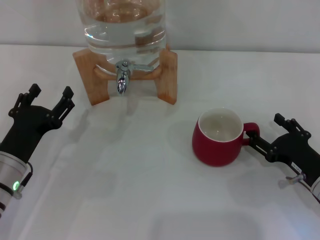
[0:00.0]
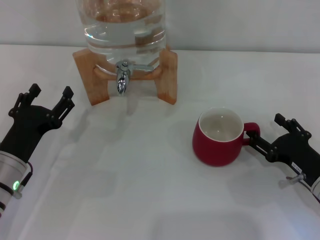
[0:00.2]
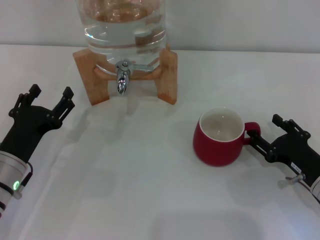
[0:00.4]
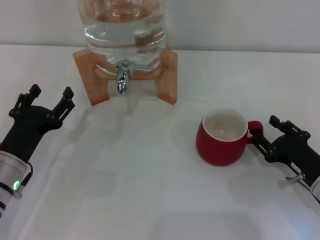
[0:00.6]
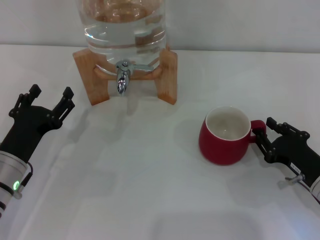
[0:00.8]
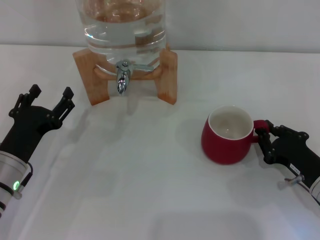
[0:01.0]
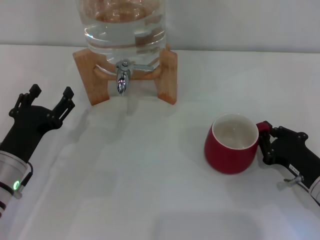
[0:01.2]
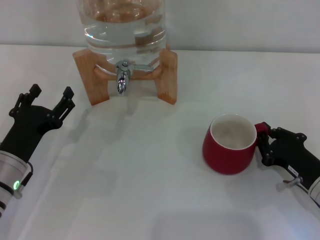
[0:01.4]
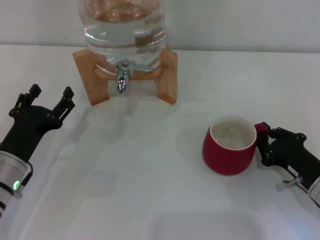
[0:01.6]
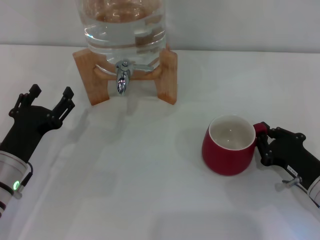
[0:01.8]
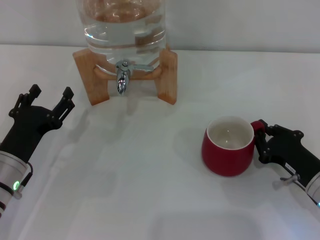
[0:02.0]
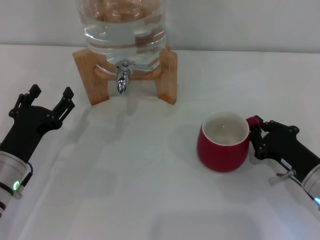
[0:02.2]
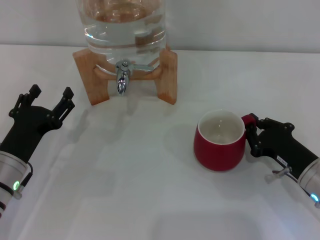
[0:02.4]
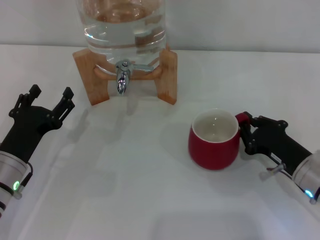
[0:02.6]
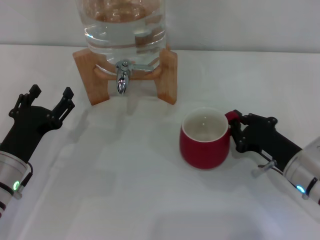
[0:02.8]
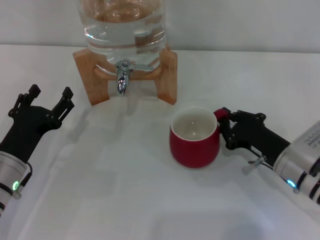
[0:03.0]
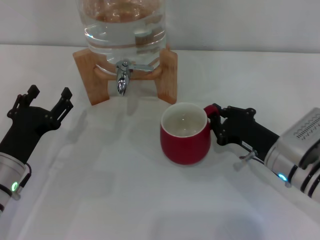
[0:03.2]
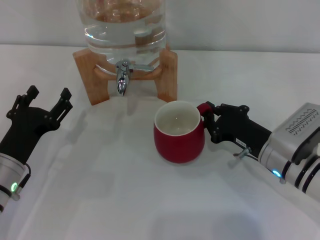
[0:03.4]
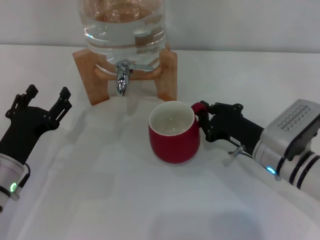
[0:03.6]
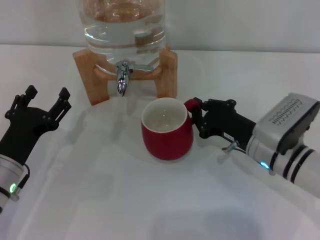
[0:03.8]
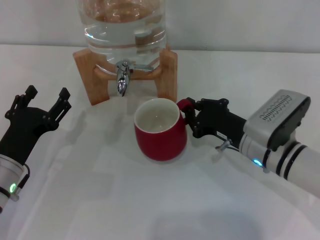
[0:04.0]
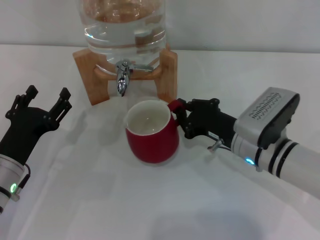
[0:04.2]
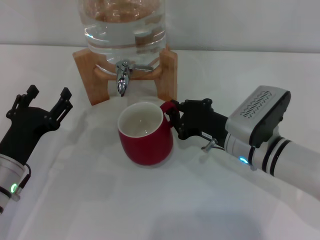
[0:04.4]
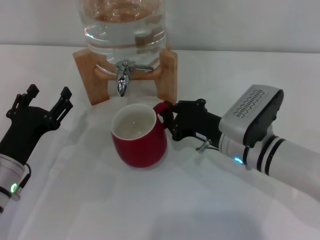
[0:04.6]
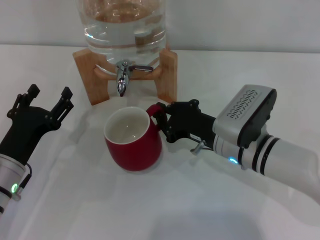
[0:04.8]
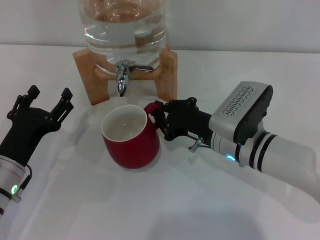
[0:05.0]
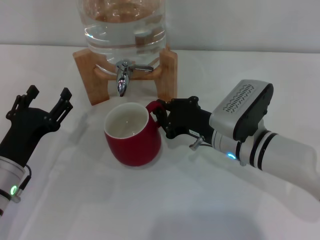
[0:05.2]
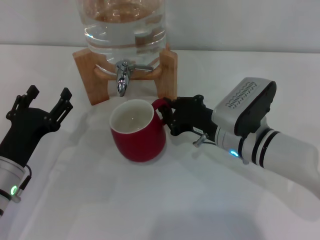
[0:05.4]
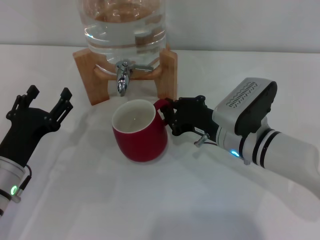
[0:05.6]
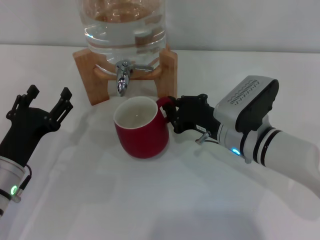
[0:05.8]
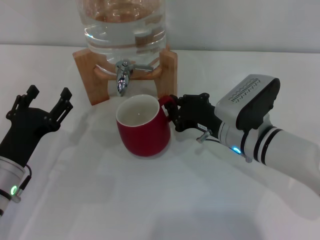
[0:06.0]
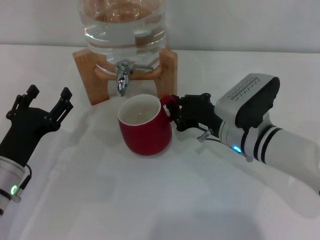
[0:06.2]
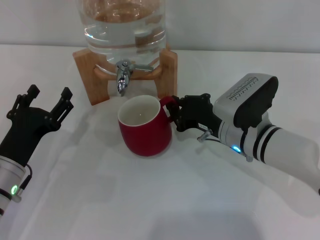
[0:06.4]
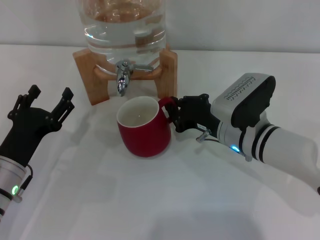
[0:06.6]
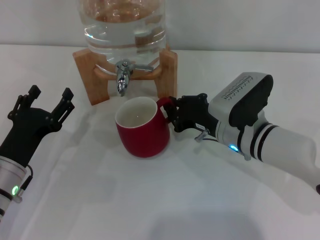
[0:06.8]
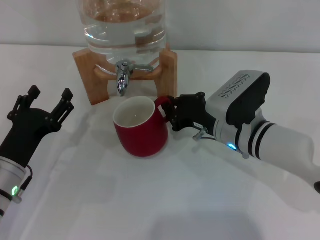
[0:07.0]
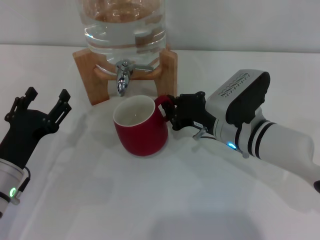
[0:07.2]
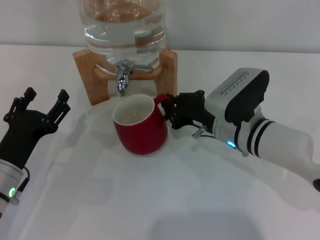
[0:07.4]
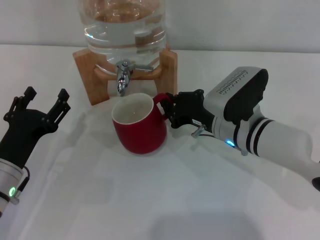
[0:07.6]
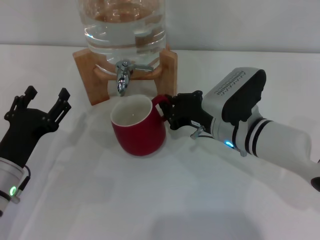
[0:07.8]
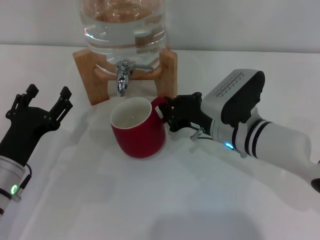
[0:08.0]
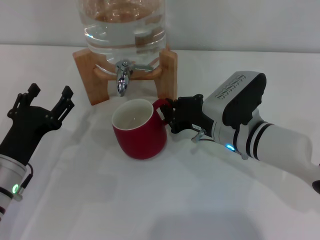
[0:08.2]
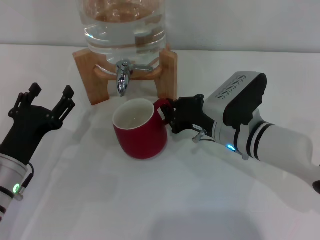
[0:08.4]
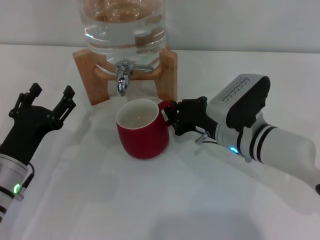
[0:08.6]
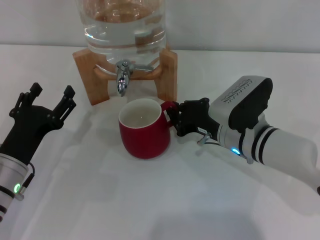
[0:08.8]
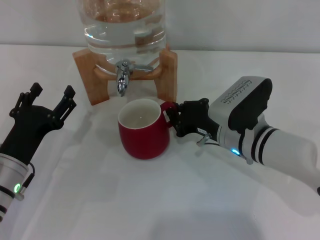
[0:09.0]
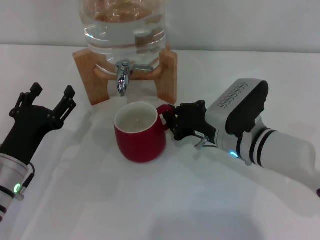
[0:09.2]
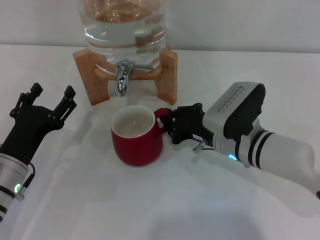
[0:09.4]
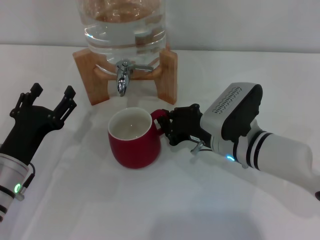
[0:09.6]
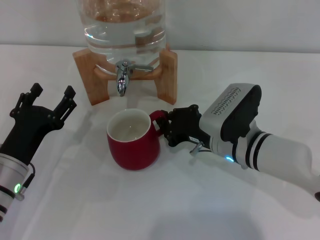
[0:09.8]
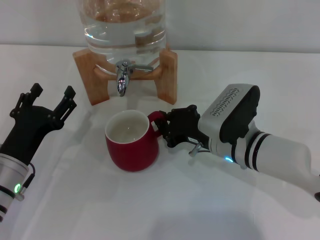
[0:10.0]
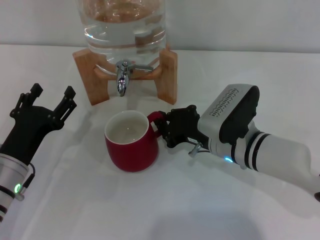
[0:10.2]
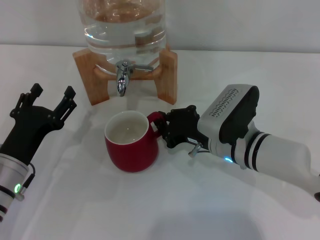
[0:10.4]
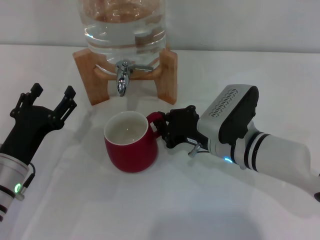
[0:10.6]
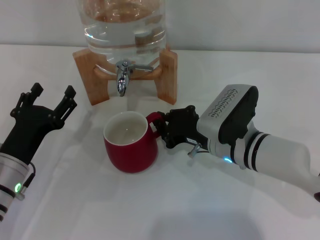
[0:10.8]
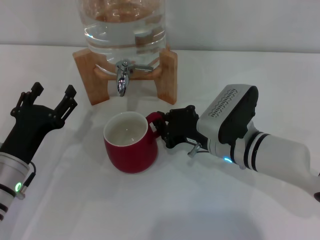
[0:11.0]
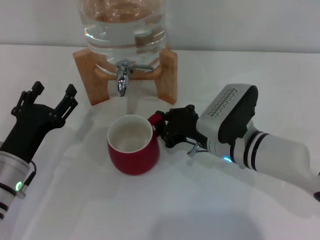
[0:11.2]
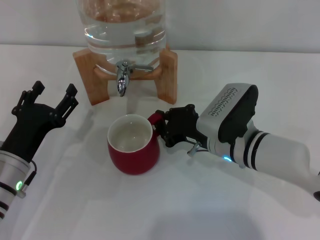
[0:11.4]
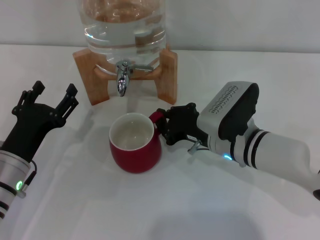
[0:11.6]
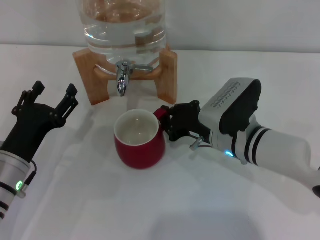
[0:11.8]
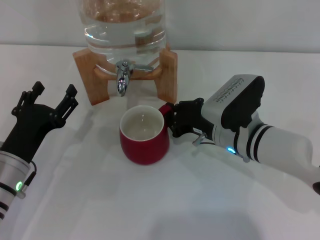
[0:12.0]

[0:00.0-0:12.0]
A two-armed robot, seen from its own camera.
Task of the whole recording: the right gripper pick up the red cup and place it horizontally under the faucet, the left gripper turn on the faucet to fill the cup, and then turn off the faucet.
0:00.0 to 0:01.6: The right gripper closes its fingers.
0:01.6 to 0:03.0: The right gripper shifts by some 5 cm.
0:03.0 to 0:04.4: The right gripper travels to the left by about 10 cm.
0:04.4 to 0:12.0: There are only small adjustments of the grippers.

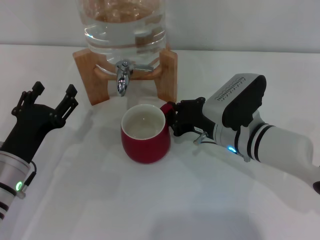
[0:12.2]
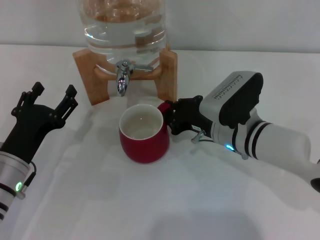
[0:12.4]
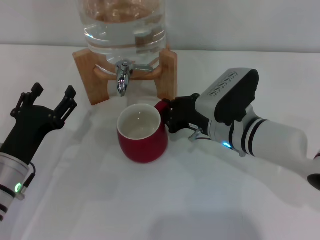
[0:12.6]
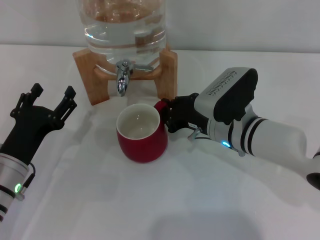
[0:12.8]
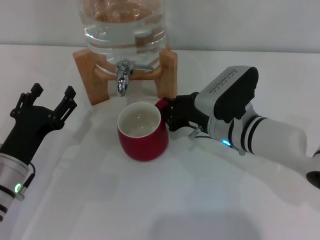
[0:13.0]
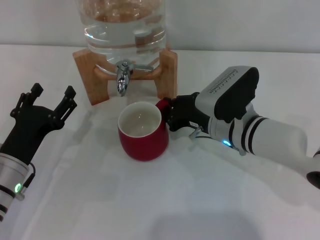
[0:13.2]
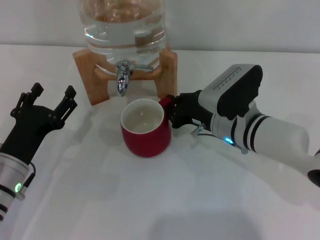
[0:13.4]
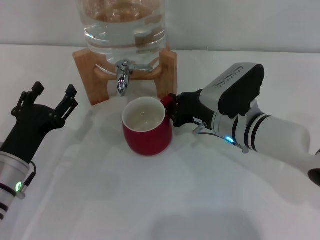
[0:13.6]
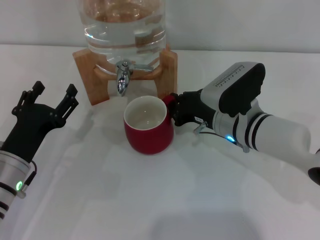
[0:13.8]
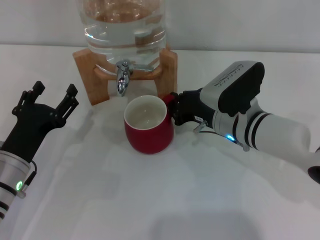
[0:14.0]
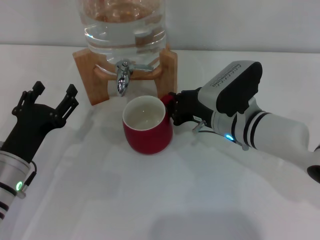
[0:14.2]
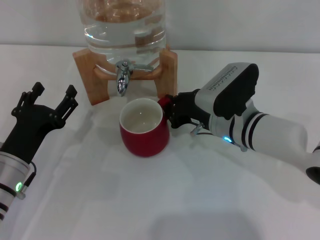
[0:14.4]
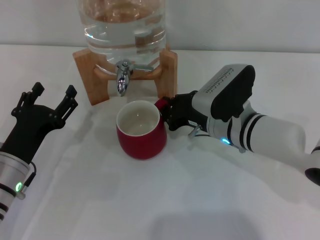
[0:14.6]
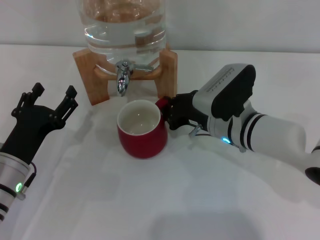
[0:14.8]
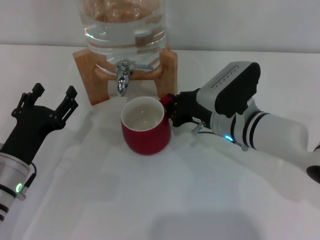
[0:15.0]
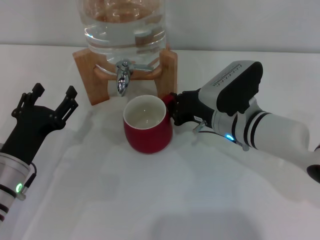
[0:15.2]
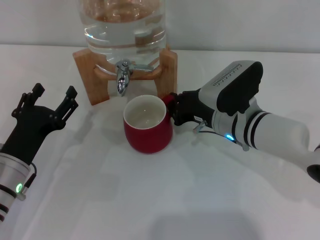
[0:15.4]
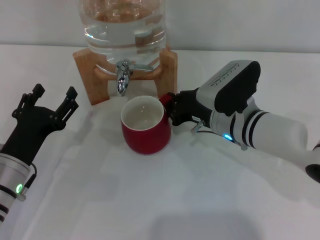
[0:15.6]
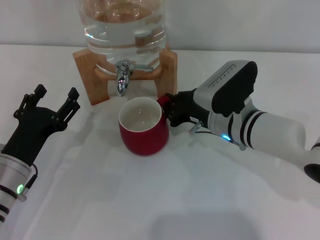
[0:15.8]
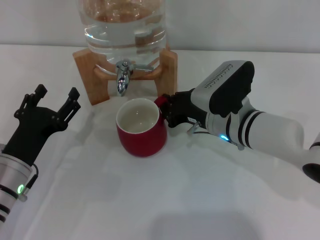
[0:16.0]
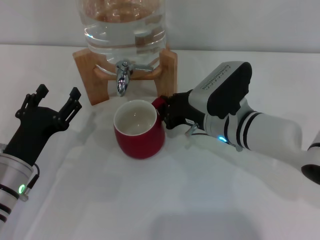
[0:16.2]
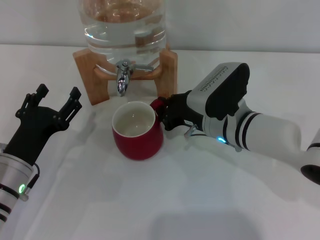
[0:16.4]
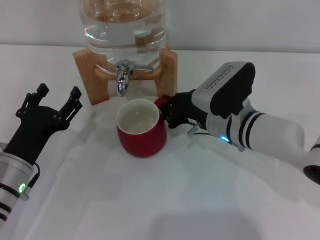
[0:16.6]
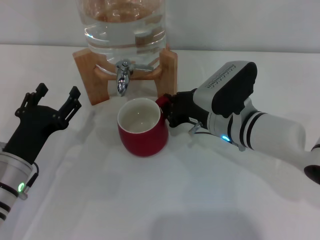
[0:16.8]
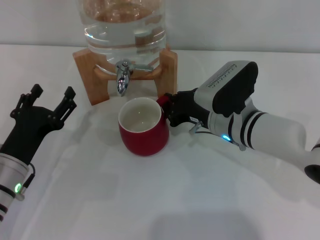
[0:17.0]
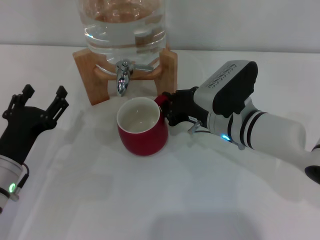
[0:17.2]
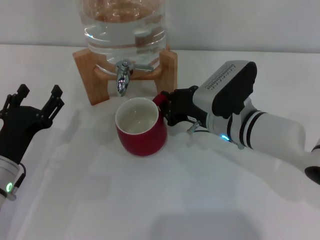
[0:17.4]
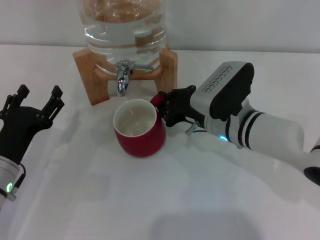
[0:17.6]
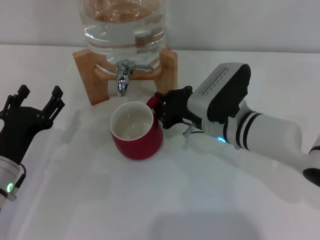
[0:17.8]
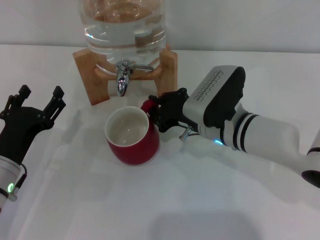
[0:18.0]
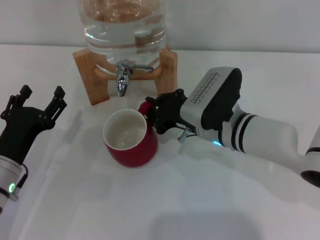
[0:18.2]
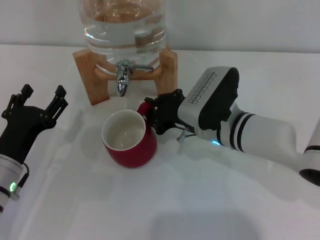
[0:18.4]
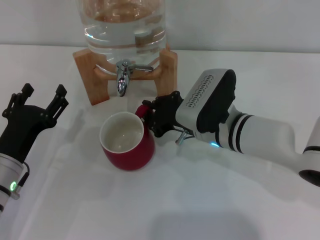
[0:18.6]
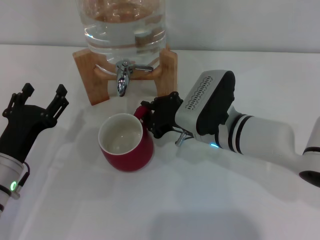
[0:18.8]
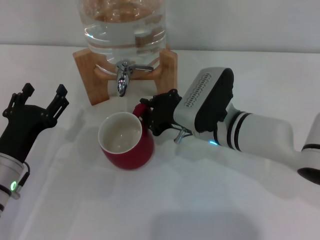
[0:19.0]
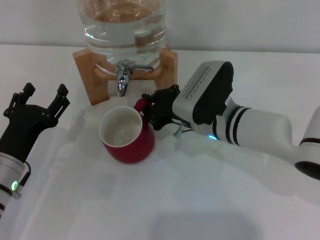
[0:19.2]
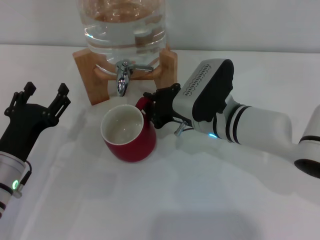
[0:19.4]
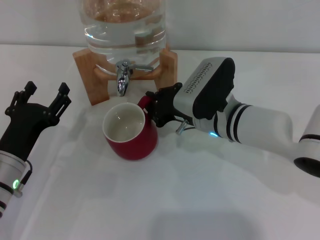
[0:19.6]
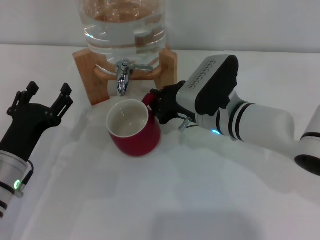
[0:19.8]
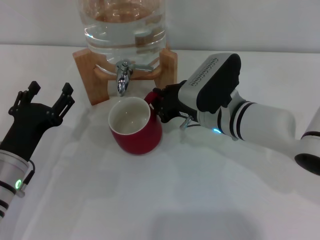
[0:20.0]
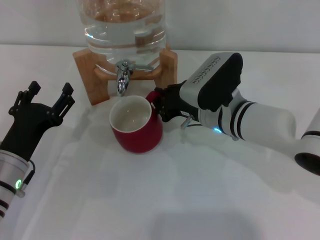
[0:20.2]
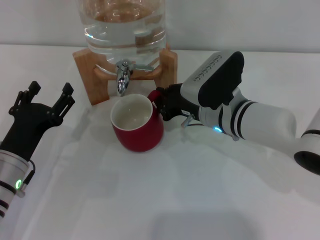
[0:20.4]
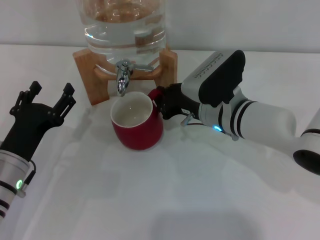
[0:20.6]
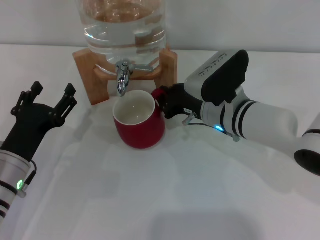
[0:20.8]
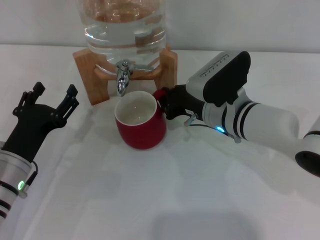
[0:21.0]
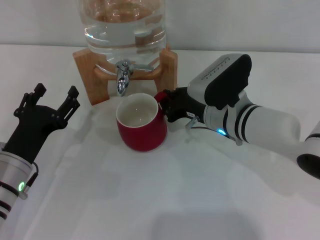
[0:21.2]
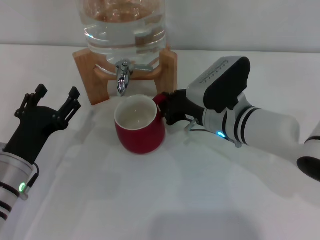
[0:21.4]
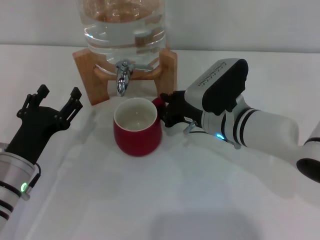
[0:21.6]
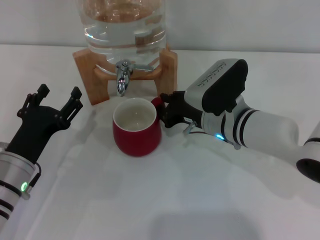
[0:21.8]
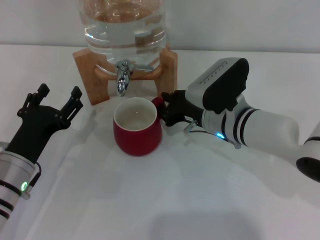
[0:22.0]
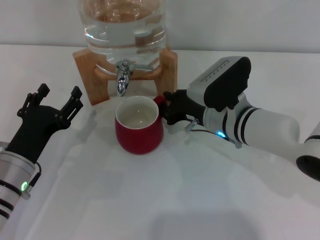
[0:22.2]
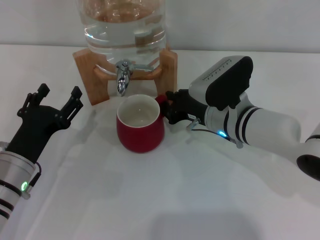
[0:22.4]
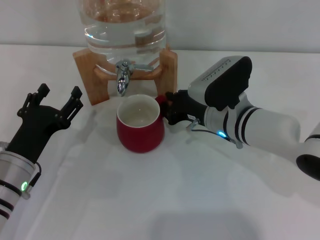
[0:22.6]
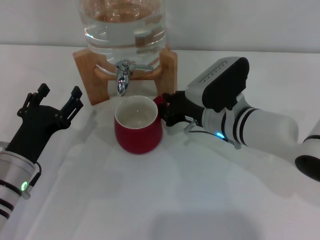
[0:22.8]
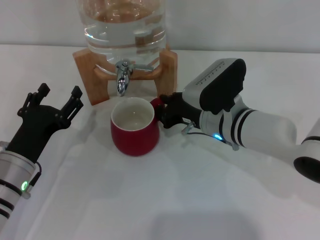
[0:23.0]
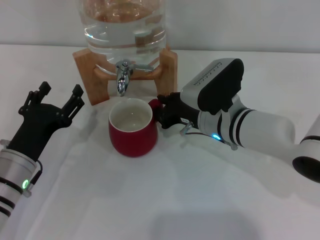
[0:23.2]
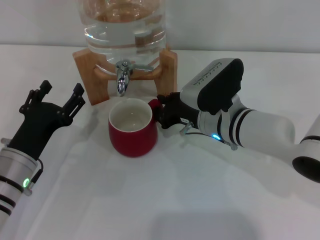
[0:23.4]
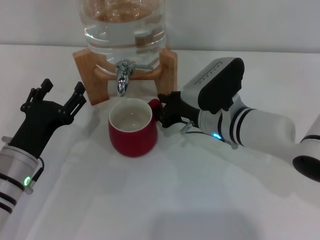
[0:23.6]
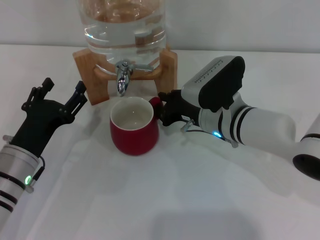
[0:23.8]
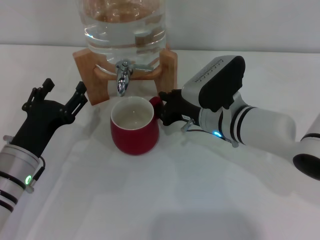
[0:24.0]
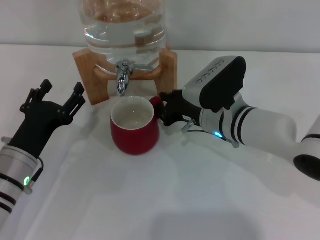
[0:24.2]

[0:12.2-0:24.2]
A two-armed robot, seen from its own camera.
Task of the whole recording: the right gripper pick up the red cup and place it horizontally under the faucet, the left gripper turn on the faucet to fill the cup, and then turn off the faucet.
0:12.2 to 0:21.2: The grippers move only a little.
0:21.2 to 0:24.2: Both grippers stay put.
